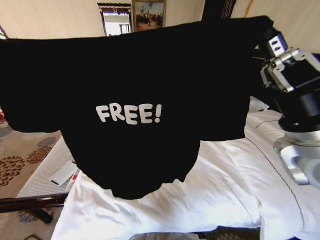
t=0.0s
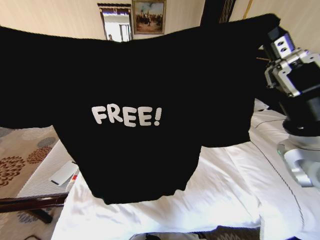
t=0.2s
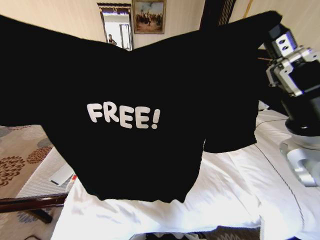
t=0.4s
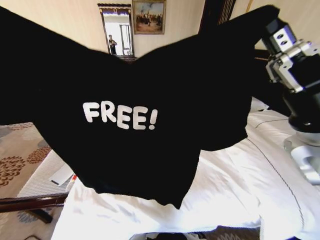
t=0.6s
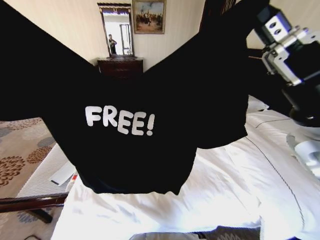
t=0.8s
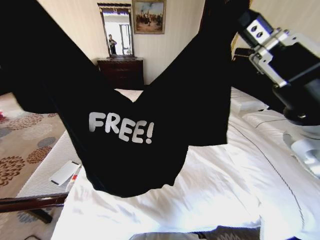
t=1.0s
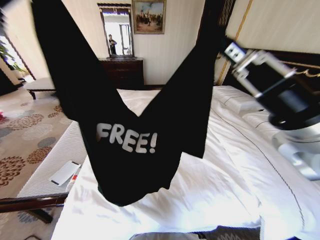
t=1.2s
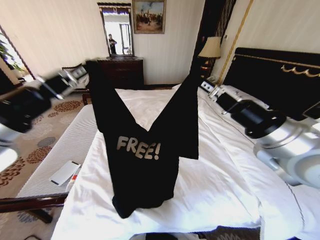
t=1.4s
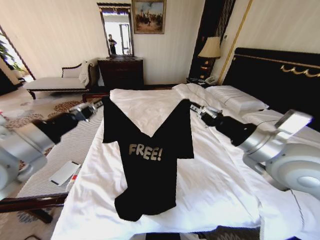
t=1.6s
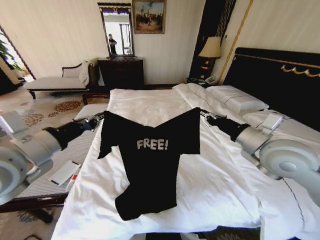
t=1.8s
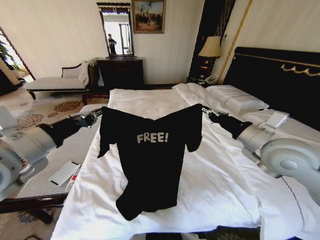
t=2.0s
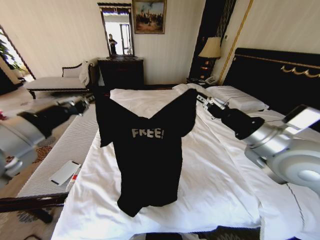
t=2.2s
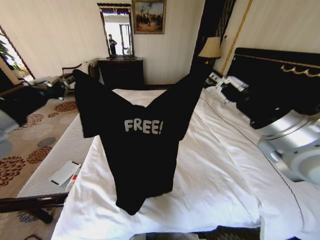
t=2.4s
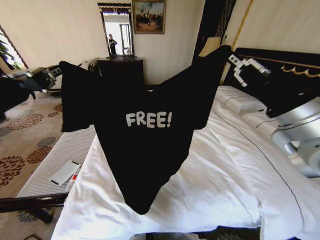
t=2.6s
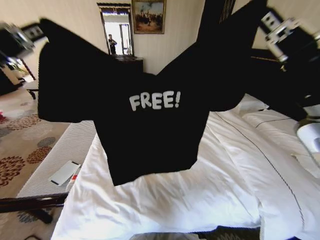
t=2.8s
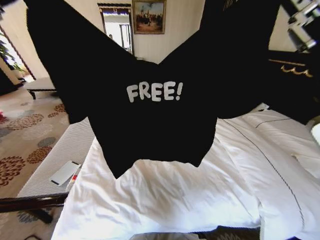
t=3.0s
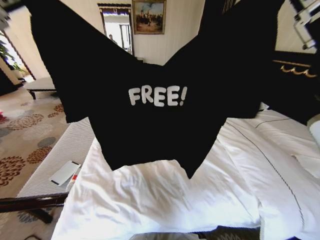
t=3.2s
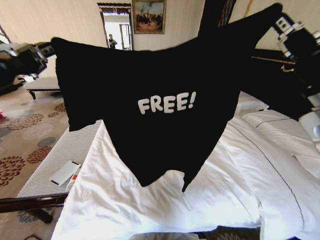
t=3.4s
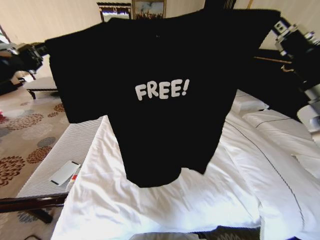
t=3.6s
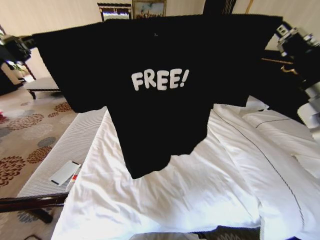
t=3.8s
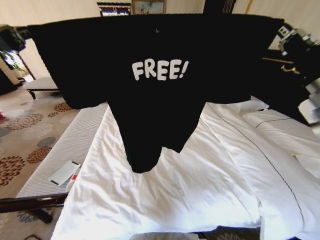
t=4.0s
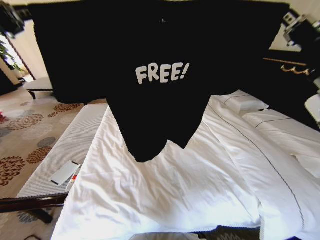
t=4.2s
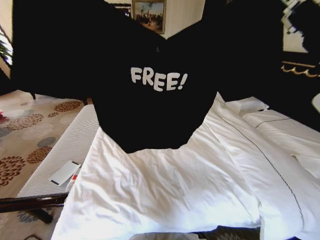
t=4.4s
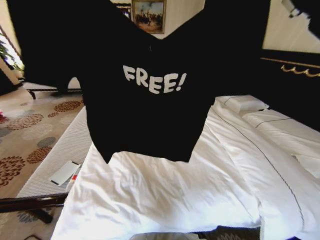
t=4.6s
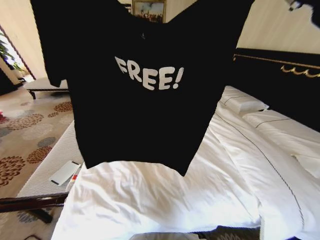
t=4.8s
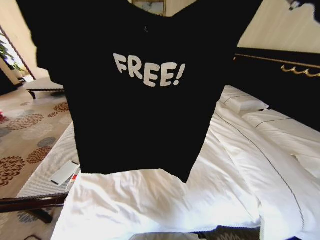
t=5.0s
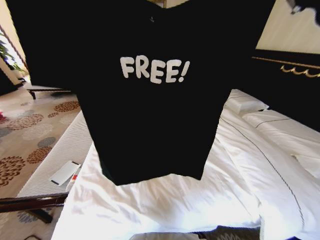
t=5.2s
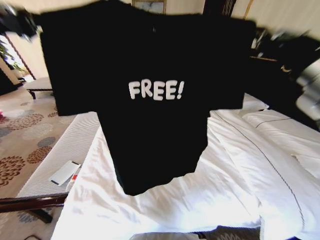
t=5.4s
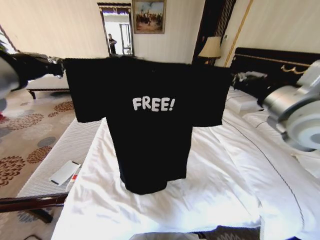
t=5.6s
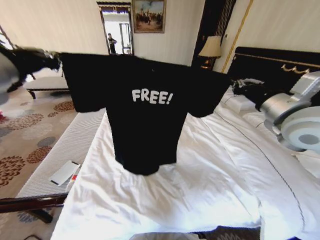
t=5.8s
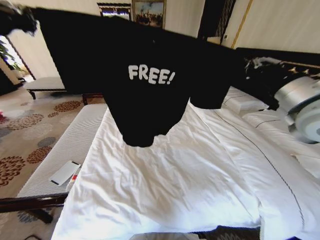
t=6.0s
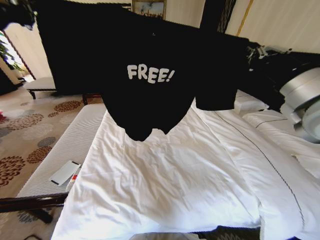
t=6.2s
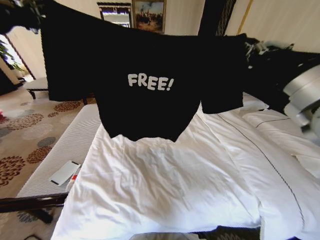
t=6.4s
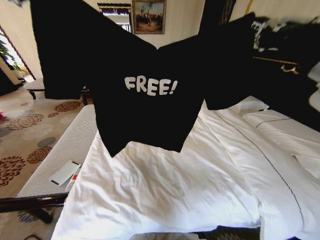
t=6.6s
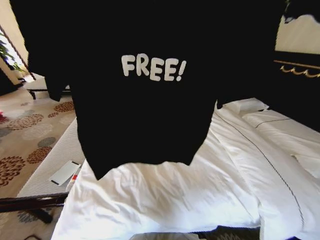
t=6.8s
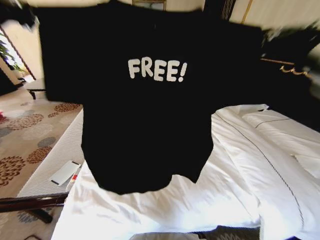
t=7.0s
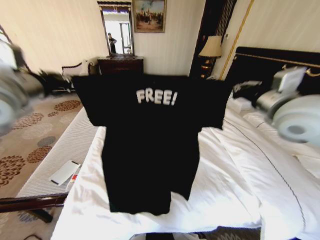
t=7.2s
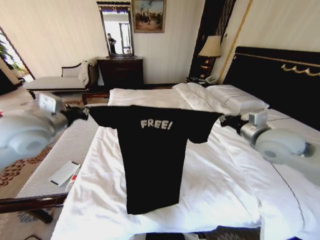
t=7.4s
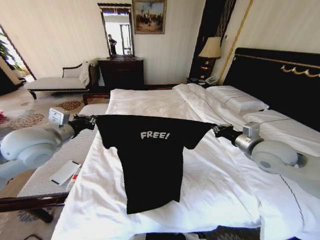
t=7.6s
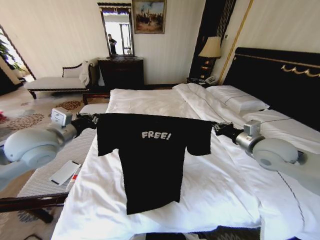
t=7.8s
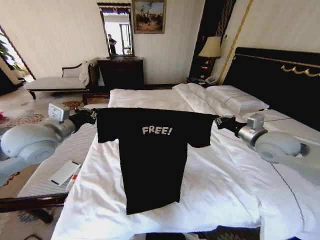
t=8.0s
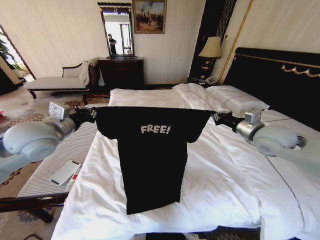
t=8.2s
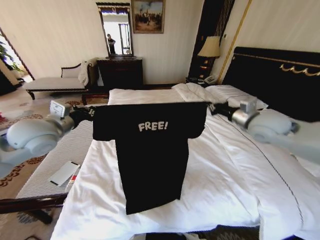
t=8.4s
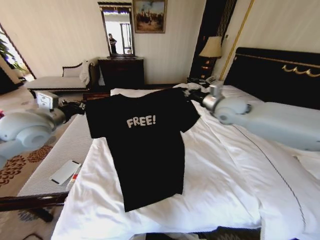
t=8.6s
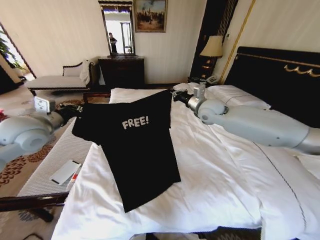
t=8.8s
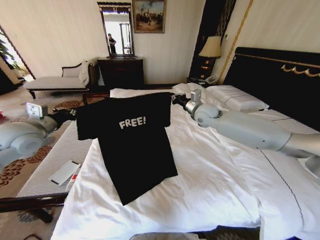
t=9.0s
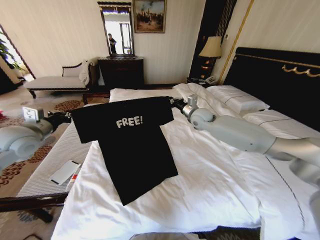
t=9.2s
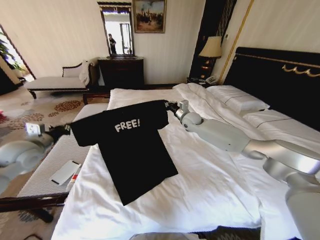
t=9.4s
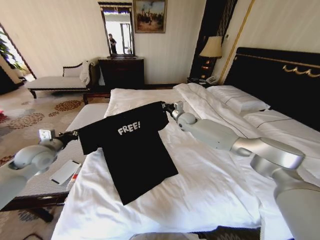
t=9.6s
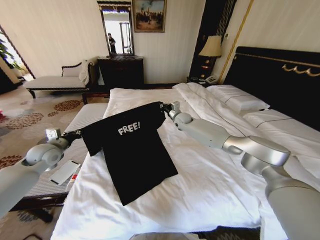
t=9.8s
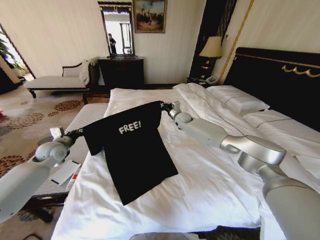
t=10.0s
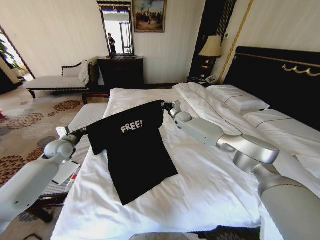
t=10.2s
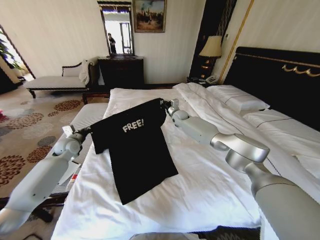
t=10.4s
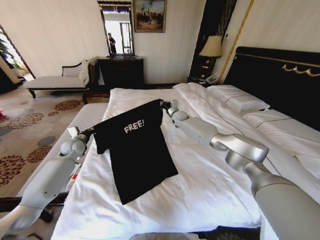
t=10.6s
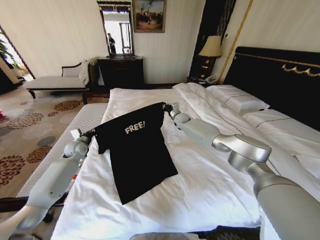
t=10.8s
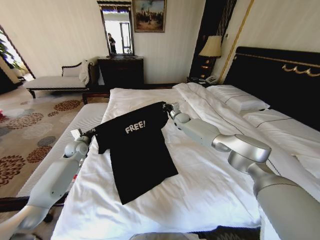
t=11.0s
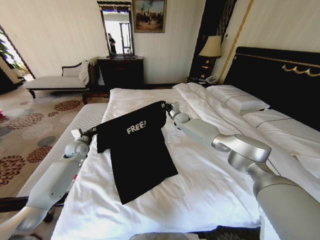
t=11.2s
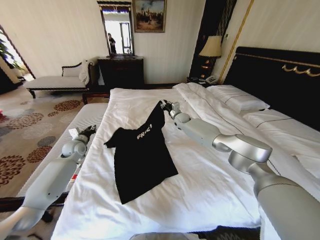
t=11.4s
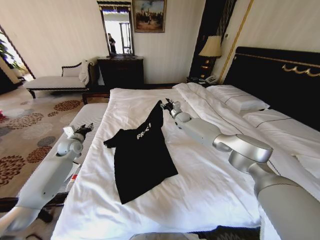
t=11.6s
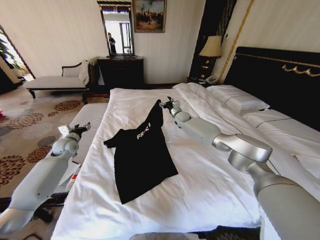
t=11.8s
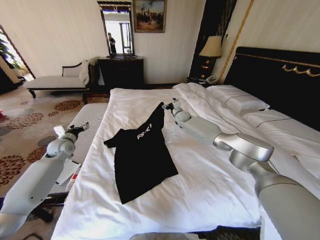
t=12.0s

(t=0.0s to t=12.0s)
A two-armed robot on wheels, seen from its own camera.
Task of the whole recording: Fold the clothes on the bed.
t=0.0s - t=1.6s: The left gripper goes roughly 10 cm forward and to the right.
t=1.6s - t=3.0s: The left gripper goes some 15 cm upward and backward. The right gripper travels upward by some 10 cm.
t=3.0s - t=4.4s: The left gripper shifts roughly 5 cm upward.
t=4.4s - t=6.0s: The right gripper heads forward and downward, covering about 10 cm. Meanwhile the left gripper moves forward, about 10 cm, and reaches approximately 5 cm downward, then returns.
t=6.0s - t=7.6s: Both grippers move downward, approximately 20 cm.
t=7.6s - t=9.0s: The right gripper shifts about 25 cm forward and to the left. The left gripper travels to the left by approximately 10 cm.
t=9.0s - t=10.4s: The right gripper goes about 20 cm forward, downward and to the left. The left gripper travels downward and forward by some 20 cm.
t=10.4s - t=12.0s: The left gripper opens its fingers; the right gripper opens.

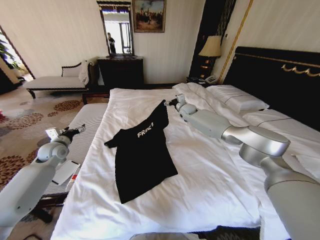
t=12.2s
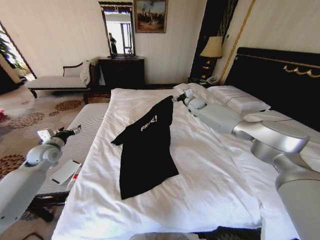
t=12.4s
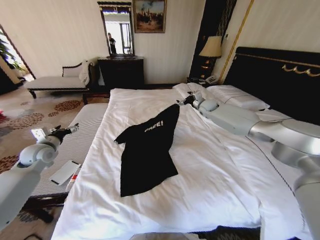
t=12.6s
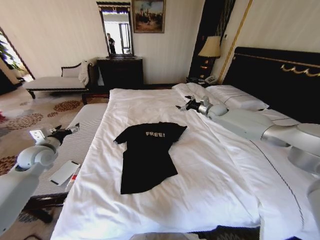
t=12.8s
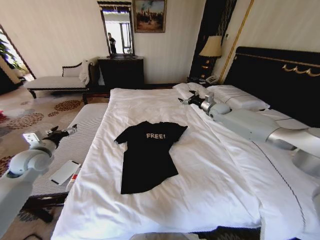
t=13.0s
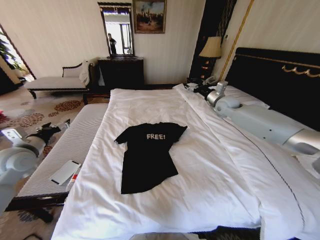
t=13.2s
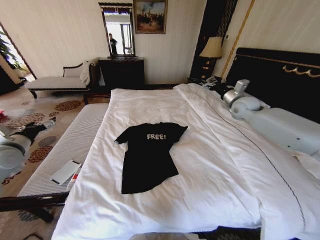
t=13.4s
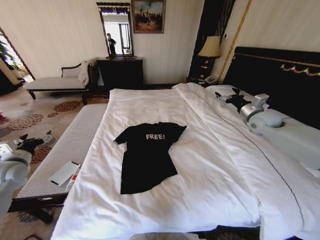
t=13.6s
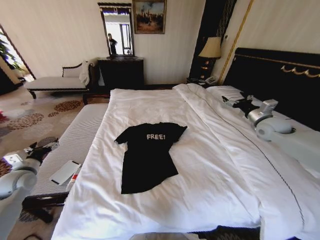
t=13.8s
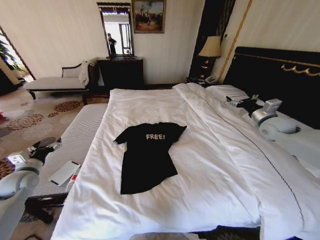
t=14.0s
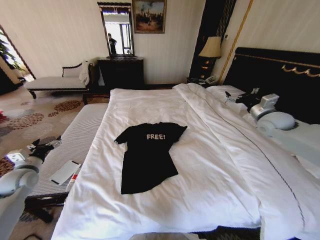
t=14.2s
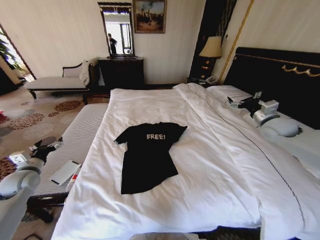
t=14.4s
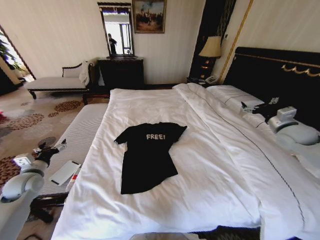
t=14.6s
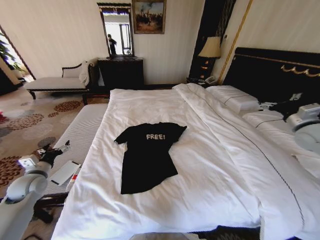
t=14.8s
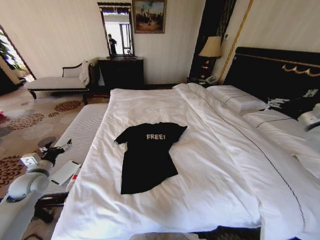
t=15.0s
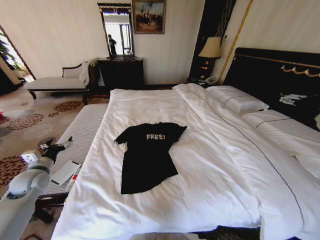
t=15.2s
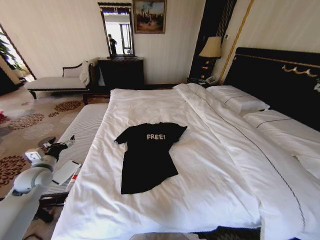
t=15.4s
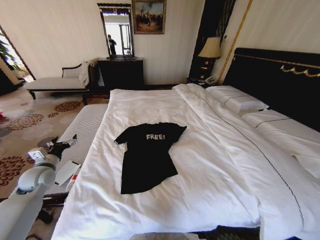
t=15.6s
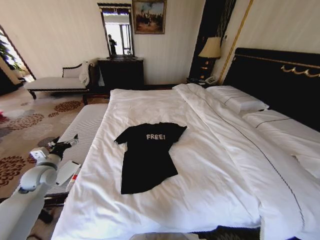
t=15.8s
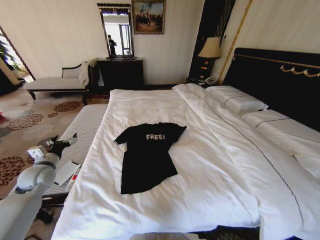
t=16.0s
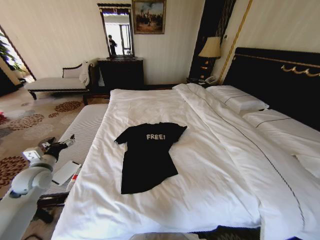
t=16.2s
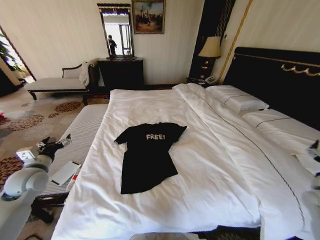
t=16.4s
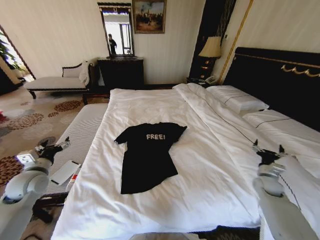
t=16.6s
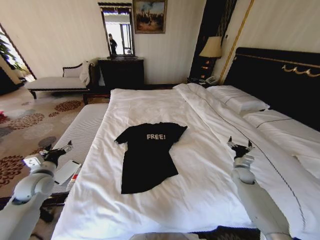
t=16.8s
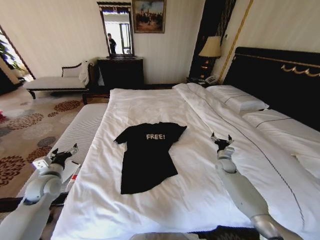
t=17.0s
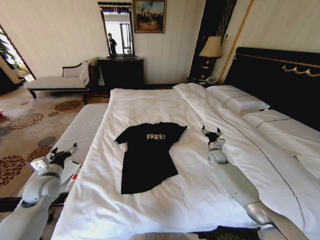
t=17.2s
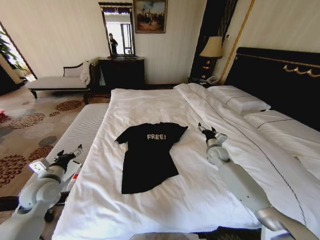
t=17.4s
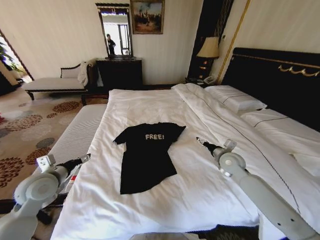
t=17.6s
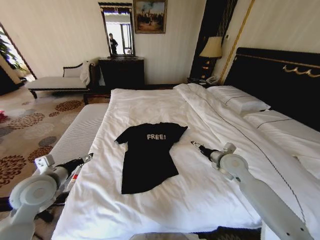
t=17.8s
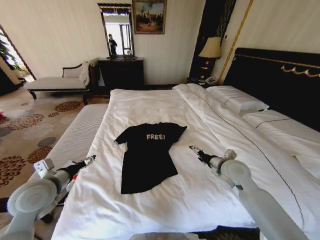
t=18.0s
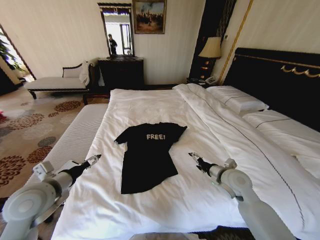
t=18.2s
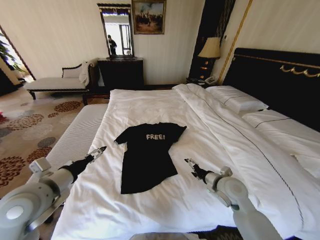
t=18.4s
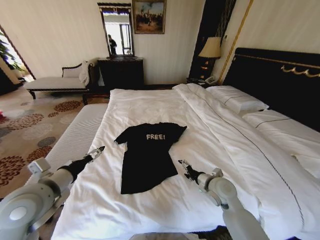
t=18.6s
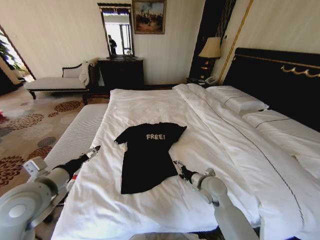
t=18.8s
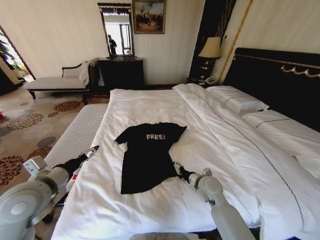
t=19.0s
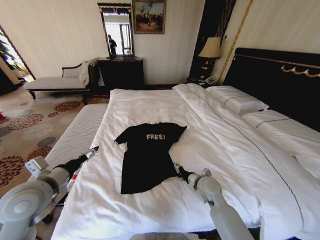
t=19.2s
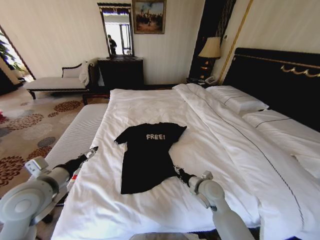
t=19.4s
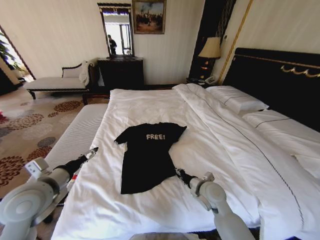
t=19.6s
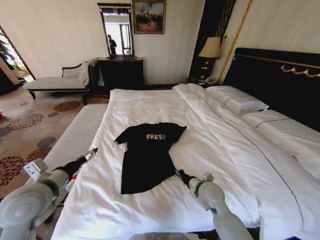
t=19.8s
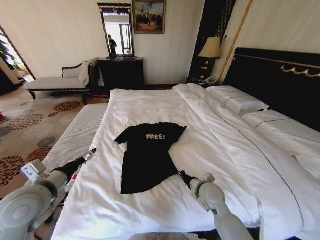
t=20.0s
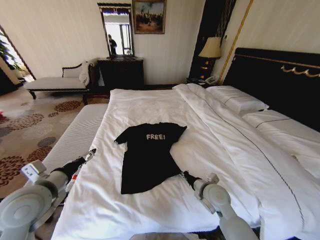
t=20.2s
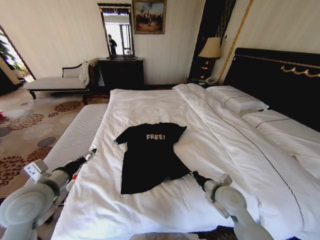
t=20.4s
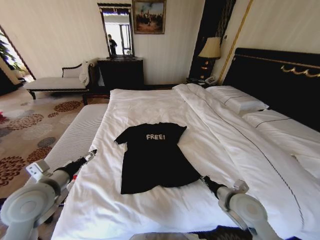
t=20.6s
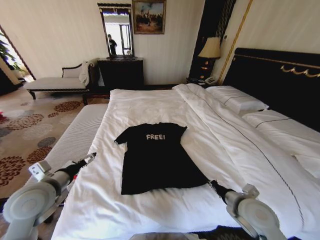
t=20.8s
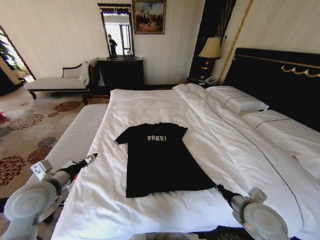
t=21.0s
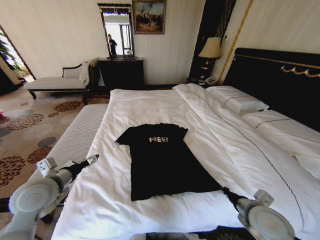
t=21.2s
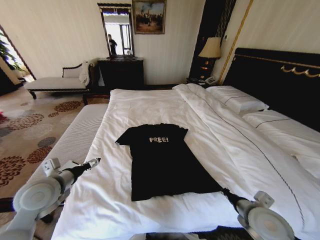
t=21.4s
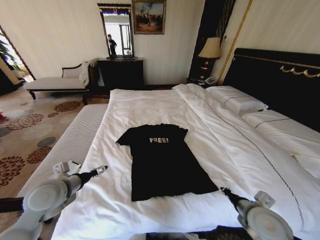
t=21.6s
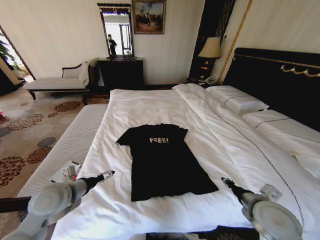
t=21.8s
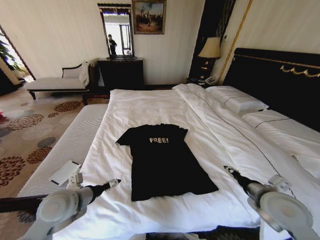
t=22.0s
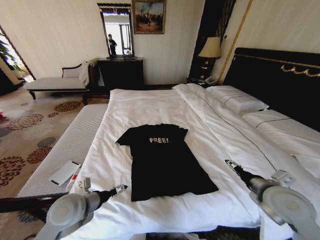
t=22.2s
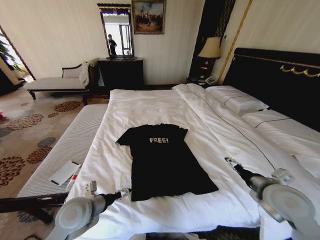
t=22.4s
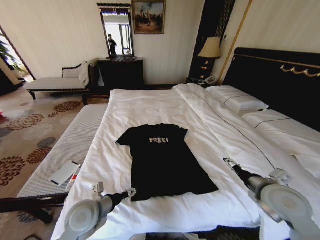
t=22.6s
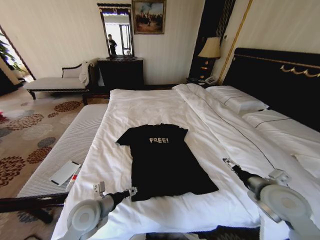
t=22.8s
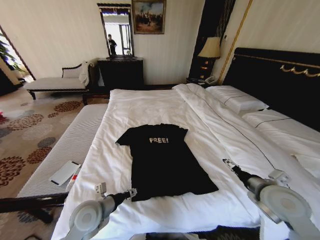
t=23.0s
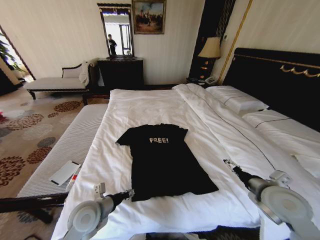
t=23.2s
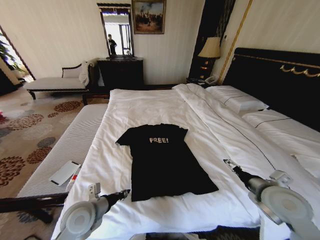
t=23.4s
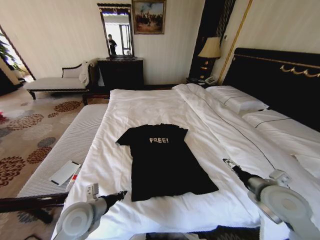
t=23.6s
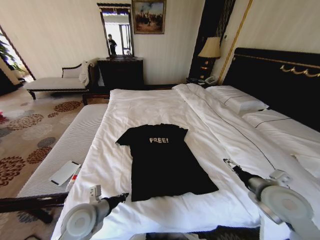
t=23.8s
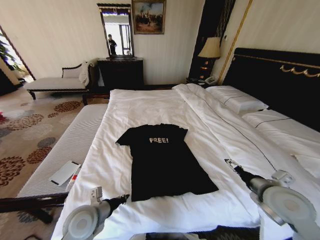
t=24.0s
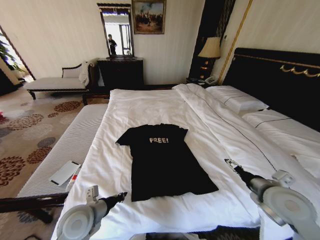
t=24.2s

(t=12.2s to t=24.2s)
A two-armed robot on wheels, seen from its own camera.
Task of the whole recording: Fold the clothes on the bed.
t=12.2s - t=13.8s: The right gripper is displaced to the right and backward by approximately 35 cm. Meanwhile the left gripper moves backward and to the left, roughly 15 cm.
t=13.8s - t=15.2s: The right gripper travels backward, upward and to the right by approximately 15 cm.
t=15.2s - t=16.6s: The right gripper shifts roughly 30 cm downward.
t=16.6s - t=18.2s: The right gripper heads to the left, covering roughly 25 cm; the left gripper heads to the right and backward, covering about 15 cm.
t=18.2s - t=19.8s: The right gripper travels to the left and downward by about 10 cm, and closes.
t=19.8s - t=21.2s: The right gripper shifts approximately 15 cm to the right, backward and upward.
t=21.2s - t=22.6s: The left gripper shifts about 15 cm to the right and downward. Meanwhile the right gripper goes approximately 5 cm upward, and opens.
t=22.6s - t=24.2s: The left gripper closes.
